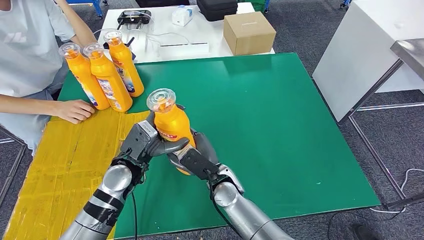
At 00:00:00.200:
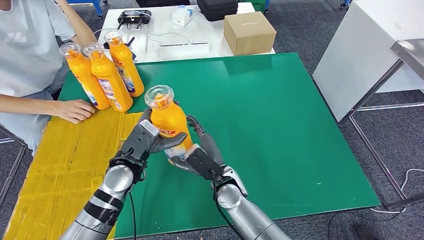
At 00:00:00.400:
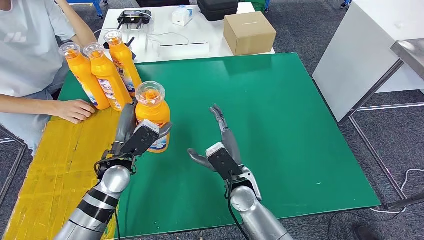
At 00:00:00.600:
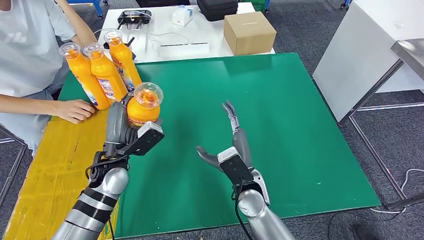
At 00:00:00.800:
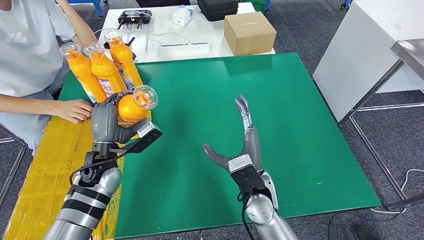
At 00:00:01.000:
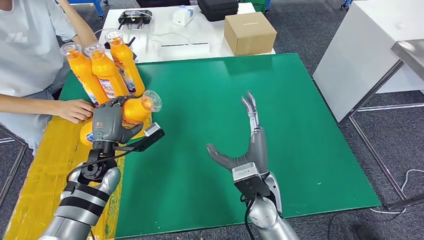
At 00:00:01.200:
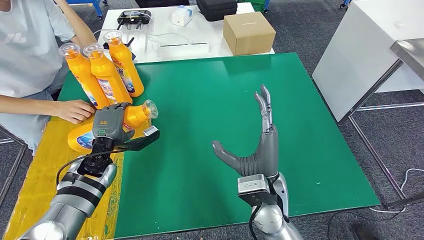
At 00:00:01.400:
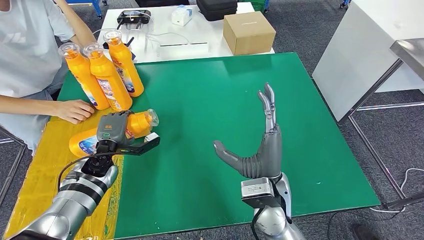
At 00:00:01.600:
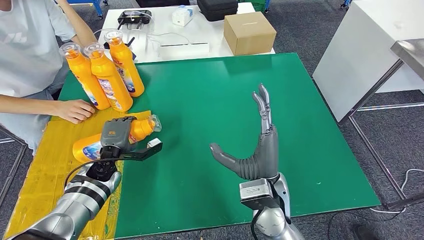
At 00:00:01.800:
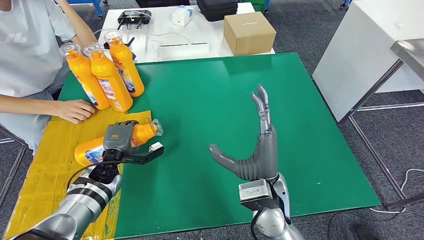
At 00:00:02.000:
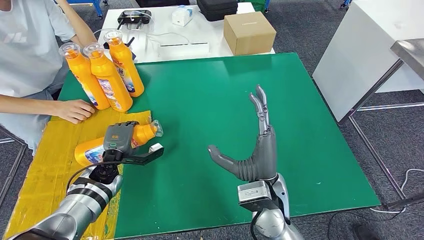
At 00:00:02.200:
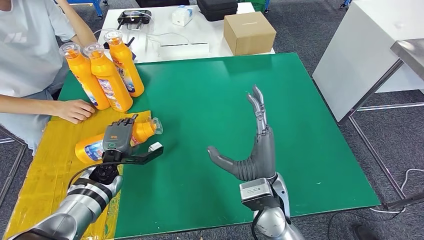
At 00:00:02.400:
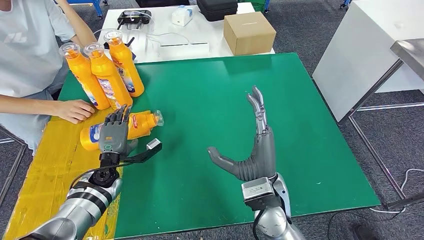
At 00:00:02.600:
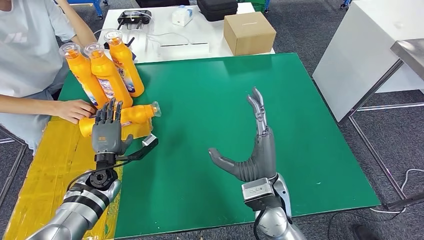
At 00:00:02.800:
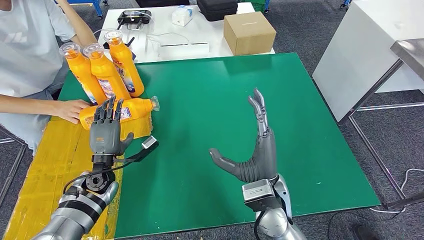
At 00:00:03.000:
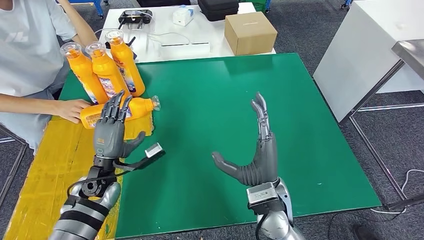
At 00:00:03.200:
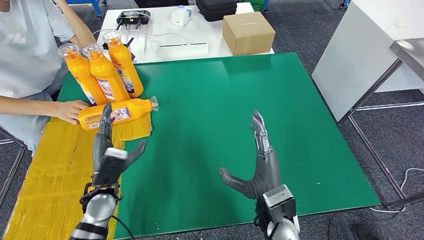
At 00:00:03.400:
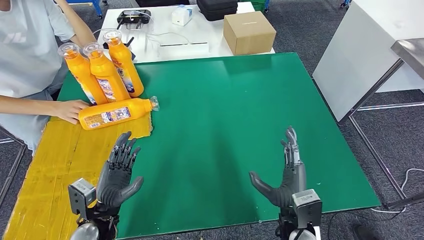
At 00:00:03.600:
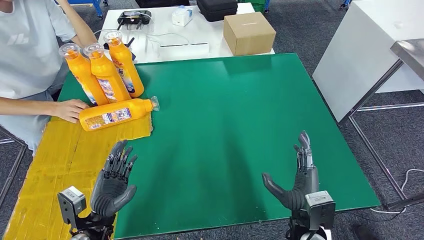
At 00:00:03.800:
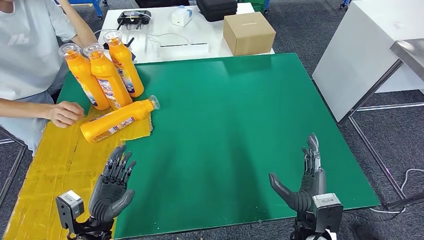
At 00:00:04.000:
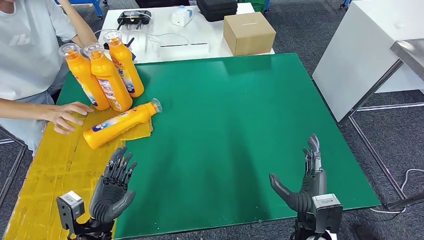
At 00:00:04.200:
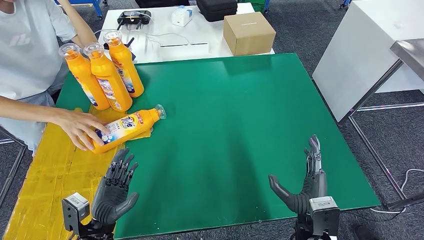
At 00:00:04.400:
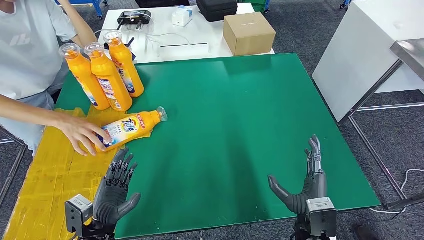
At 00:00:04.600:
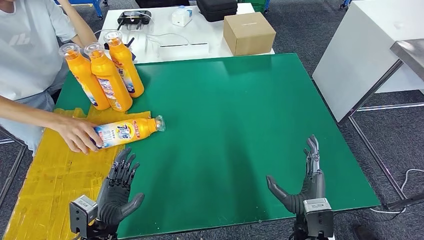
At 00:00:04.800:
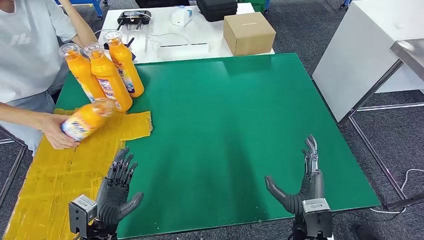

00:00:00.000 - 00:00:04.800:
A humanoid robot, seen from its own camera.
Step, 00:00:00.000 - 00:00:04.600: Flip the fast-moving consumer goods bottle to the front side.
00:00:00.000 - 00:00:01.600: The left hand goes some 10 cm to the left and downward. The right hand heads to the right, upward and backward, covering roughly 15 cm.
00:00:01.600 - 00:00:03.200: The right hand shifts by approximately 5 cm. Meanwhile the left hand moves backward, some 10 cm.
00:00:03.200 - 00:00:04.800: The left hand heads backward, covering approximately 10 cm. The right hand travels to the right by roughly 10 cm.
